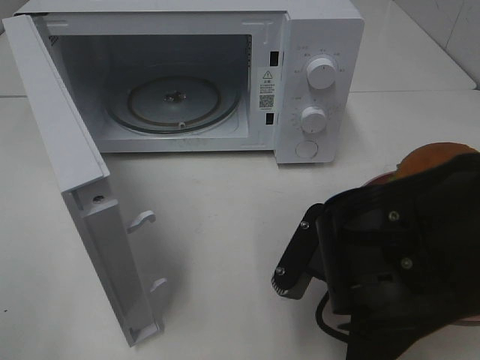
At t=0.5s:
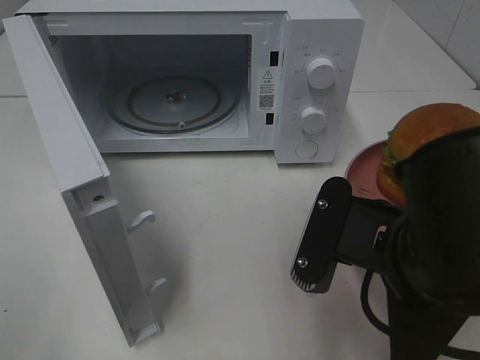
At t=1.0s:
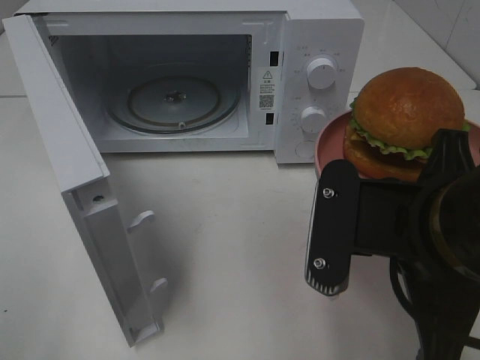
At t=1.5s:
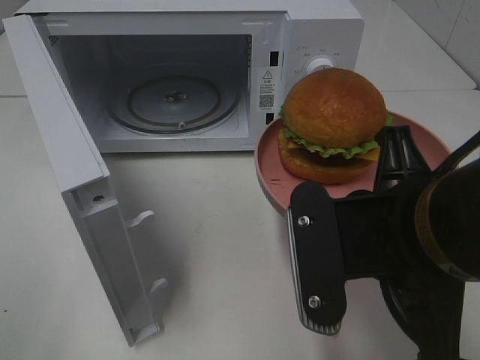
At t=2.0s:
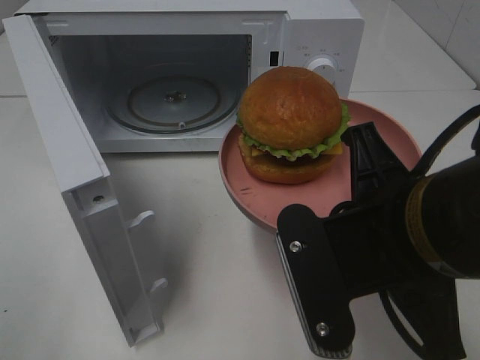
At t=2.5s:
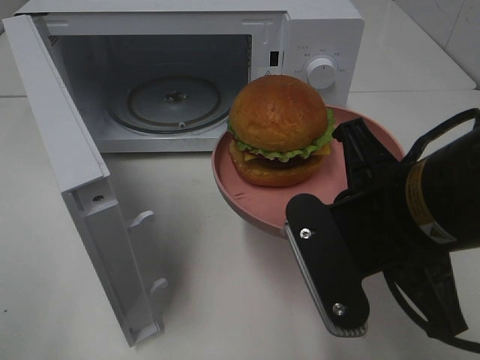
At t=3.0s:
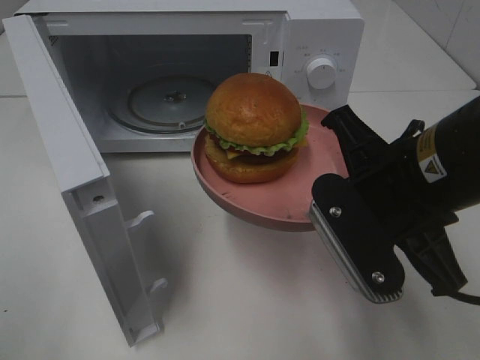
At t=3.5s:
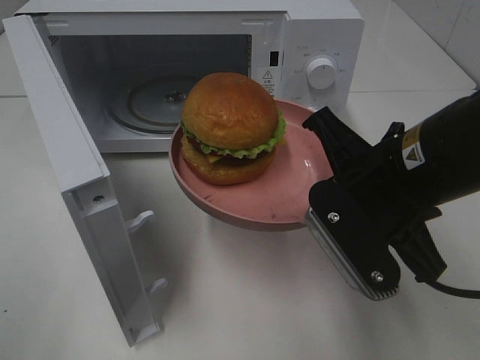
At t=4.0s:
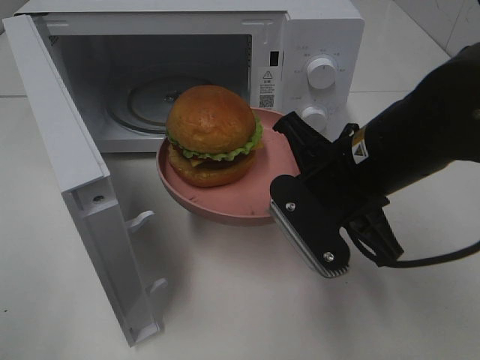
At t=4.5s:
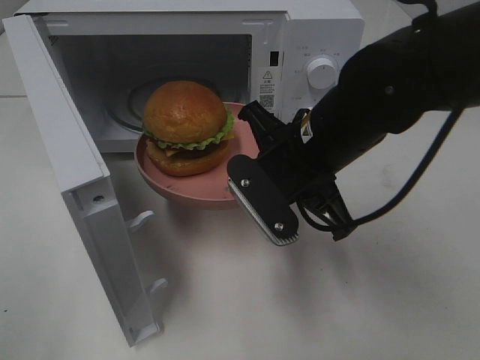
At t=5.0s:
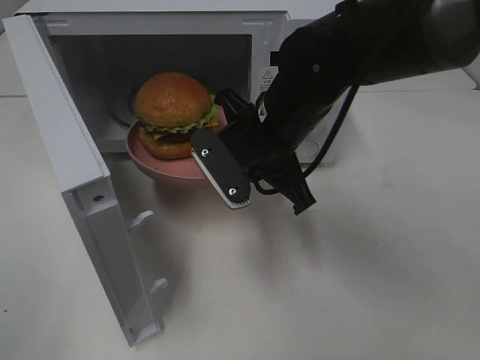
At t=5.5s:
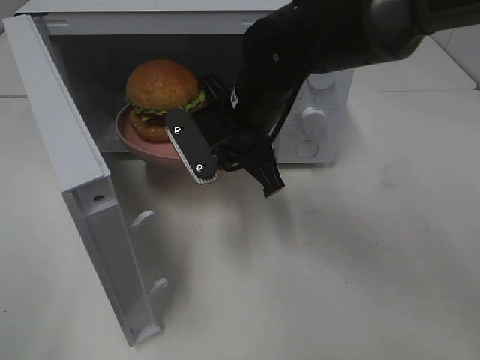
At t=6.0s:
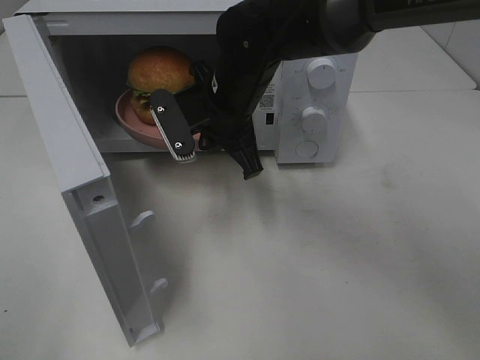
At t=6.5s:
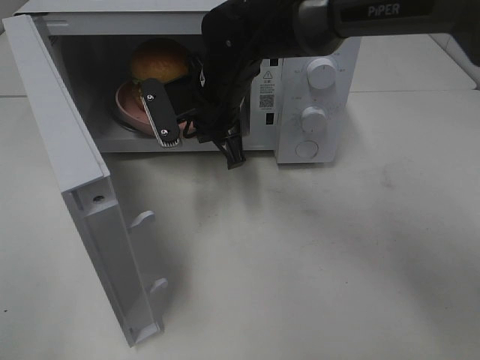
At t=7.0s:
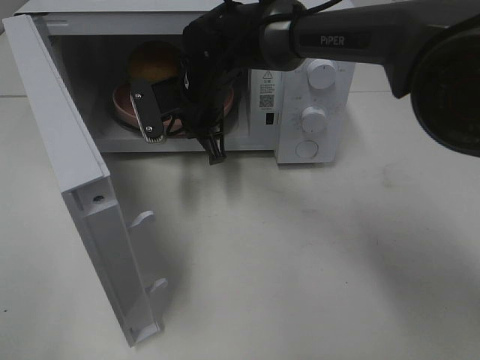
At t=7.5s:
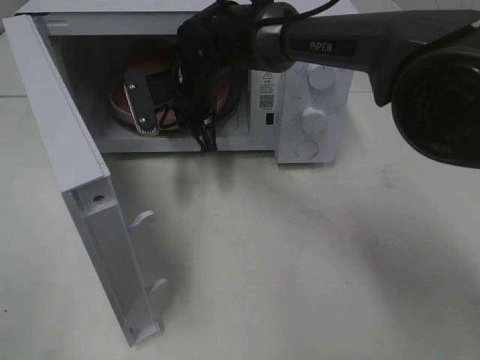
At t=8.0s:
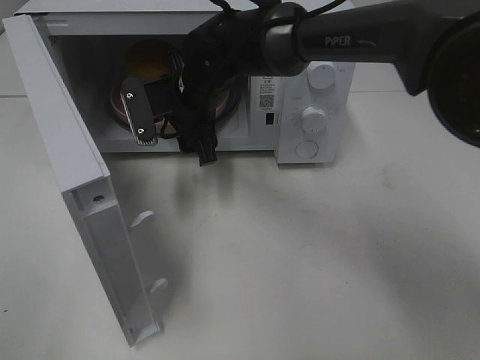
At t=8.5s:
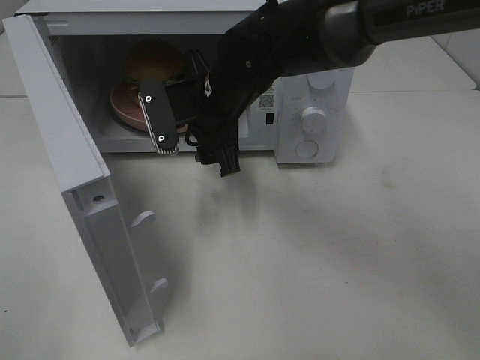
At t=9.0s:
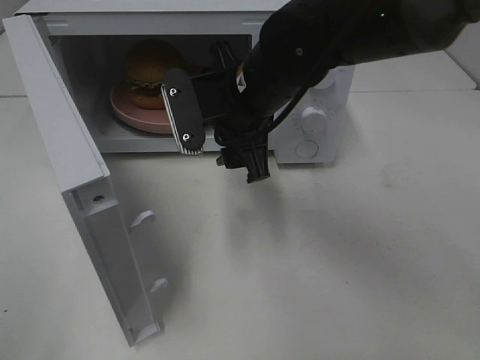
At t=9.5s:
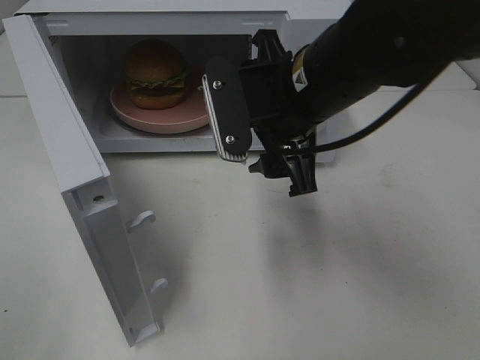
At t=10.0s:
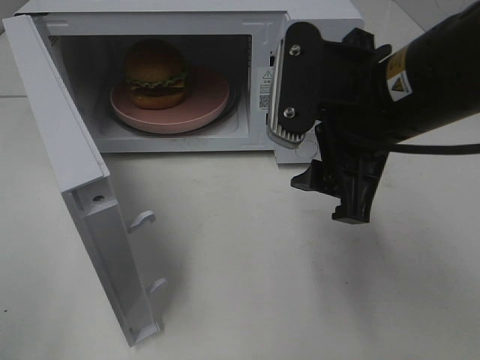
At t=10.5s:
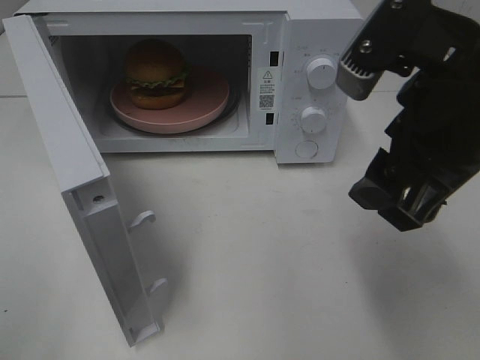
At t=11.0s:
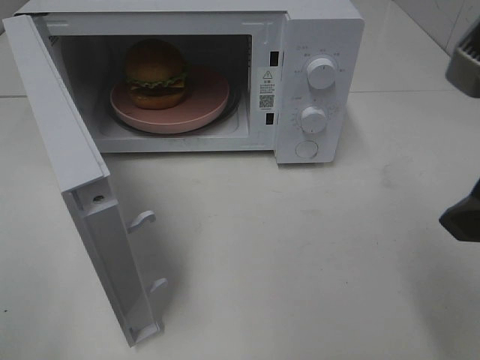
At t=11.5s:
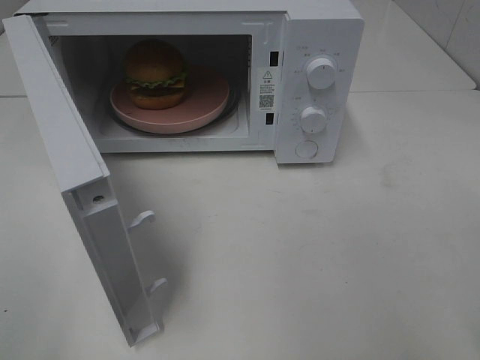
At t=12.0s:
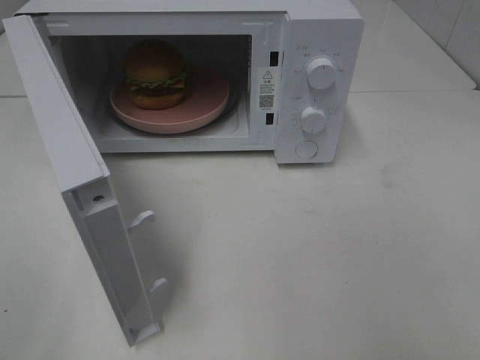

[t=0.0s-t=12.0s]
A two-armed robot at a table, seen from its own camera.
Task of the whole recording: Heat the burger.
Step, t=0.0s to t=7.5s: Right hand: place the plate in the microwave.
t=0.0s to t=2.0s: The right gripper heads upward, covering roughly 10 cm.
t=2.0s to t=4.0s: The right gripper moves forward, roughly 10 cm.
t=4.0s to t=6.0s: The right gripper moves forward and to the left, roughly 15 cm.
t=6.0s to t=8.0s: The right gripper changes place by some 5 cm, and opens.
t=8.0s to t=10.0s: The right gripper travels backward, to the right and upward by about 25 cm.
t=10.0s to t=12.0s: The right gripper moves backward and to the right, about 25 cm.

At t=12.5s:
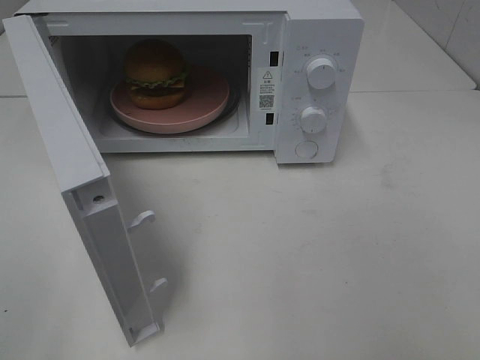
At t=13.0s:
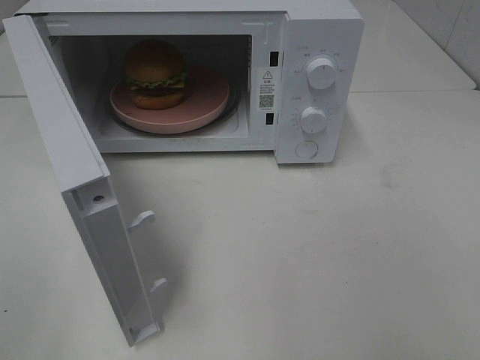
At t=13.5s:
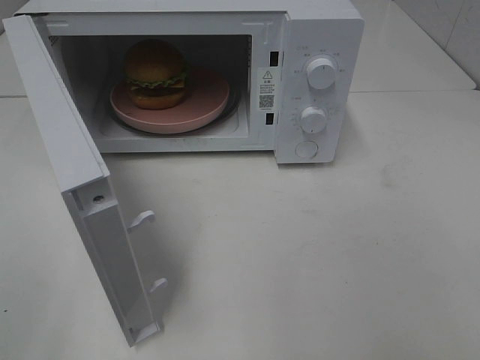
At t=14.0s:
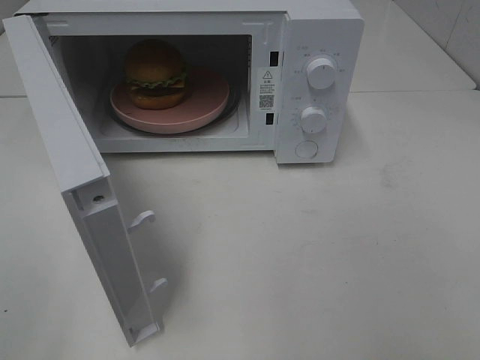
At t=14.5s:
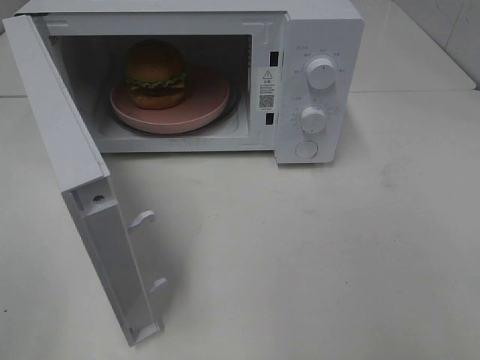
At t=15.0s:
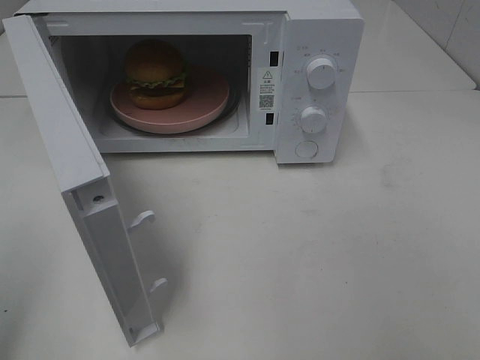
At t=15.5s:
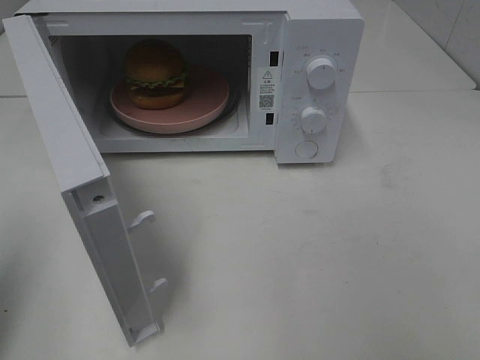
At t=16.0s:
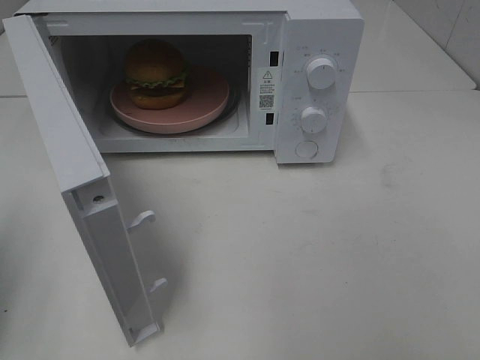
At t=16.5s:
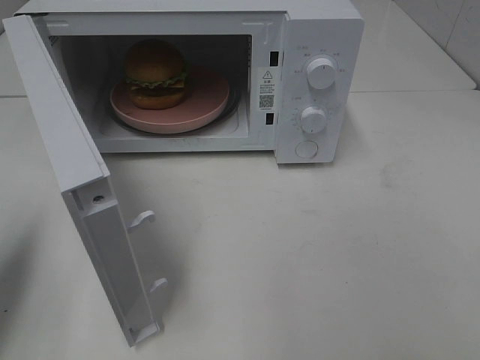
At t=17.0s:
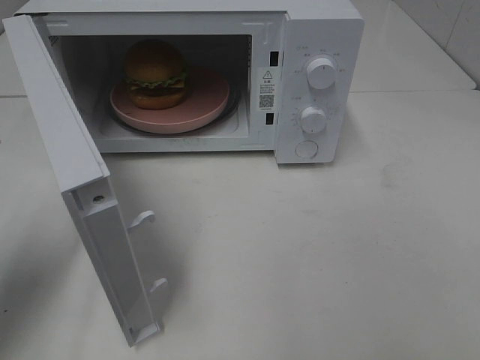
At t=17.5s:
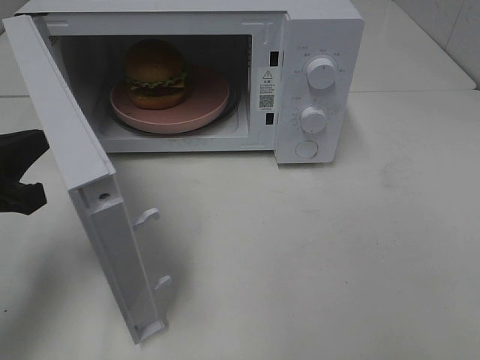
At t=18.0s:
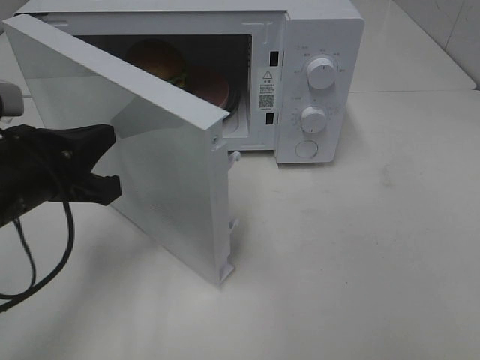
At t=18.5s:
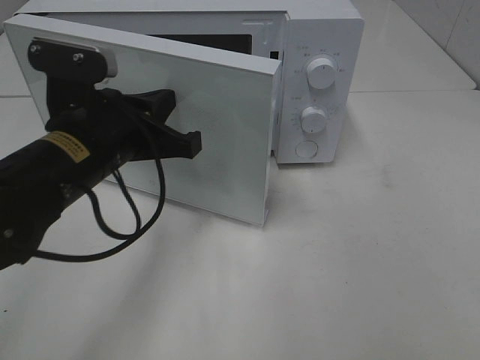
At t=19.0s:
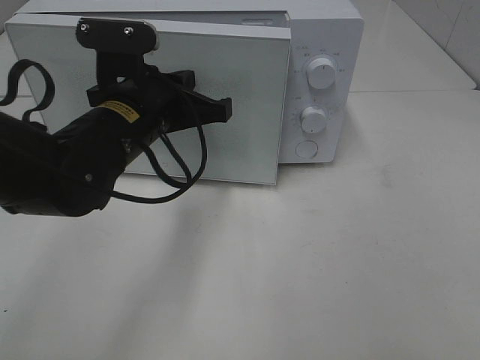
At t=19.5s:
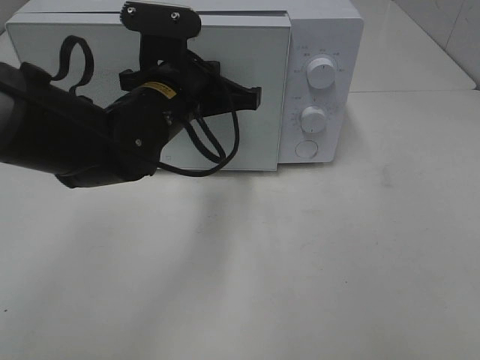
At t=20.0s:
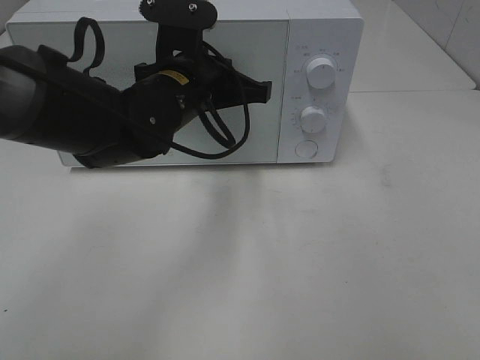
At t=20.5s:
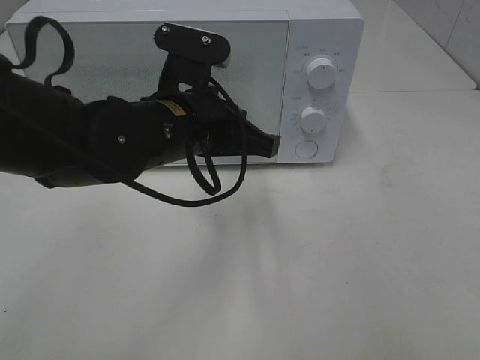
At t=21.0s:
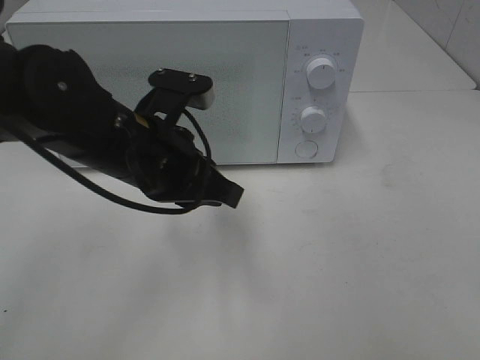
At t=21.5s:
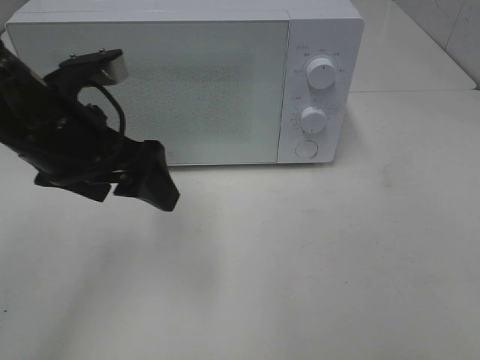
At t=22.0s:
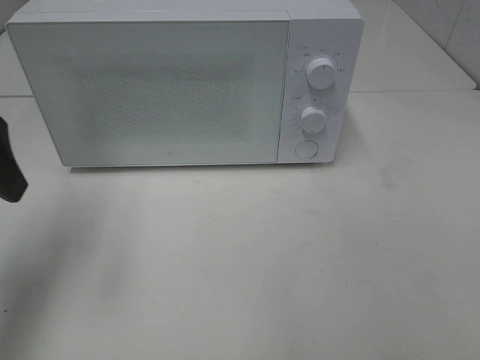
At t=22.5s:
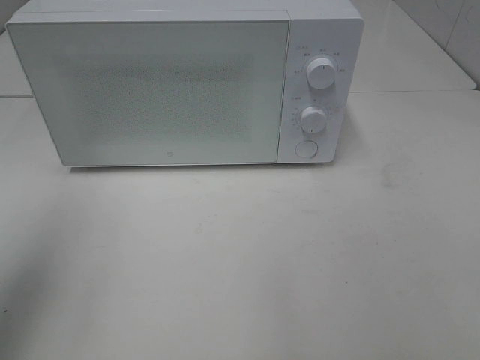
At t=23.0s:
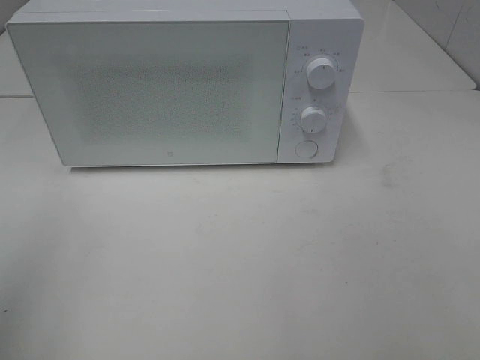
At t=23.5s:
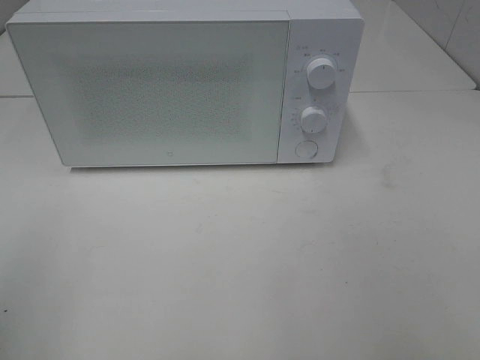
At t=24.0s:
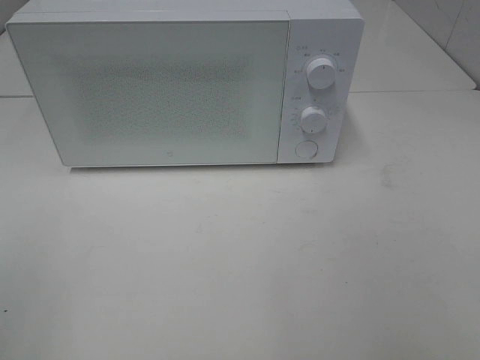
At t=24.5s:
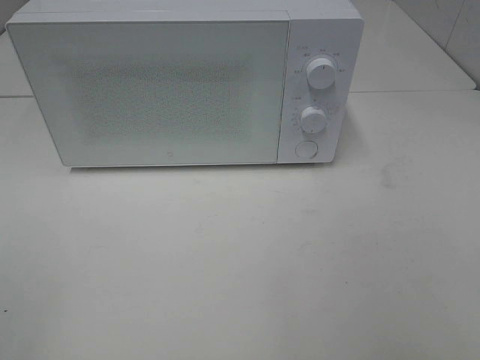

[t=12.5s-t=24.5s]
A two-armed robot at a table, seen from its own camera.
Task of the whole recording: Heat the burger.
Step, t=12.5s to t=20.5s: Left hand: close the microwave door.
t=12.5s to t=14.5s: Both grippers stay about where they are.
t=14.5s to t=16.5s: The left gripper is displaced forward and downward by some 15 cm, and closes up.
t=16.5s to t=18.5s: The left gripper shifts some 20 cm to the right and forward.
t=18.5s to t=20.5s: The left gripper travels to the right by roughly 10 cm, and goes forward and returns, some 10 cm each way.
t=20.5s to t=22.5s: The left gripper shifts roughly 30 cm to the left, upward and backward, and opens.
t=22.5s to t=24.5s: The left gripper heads backward, covering roughly 15 cm.

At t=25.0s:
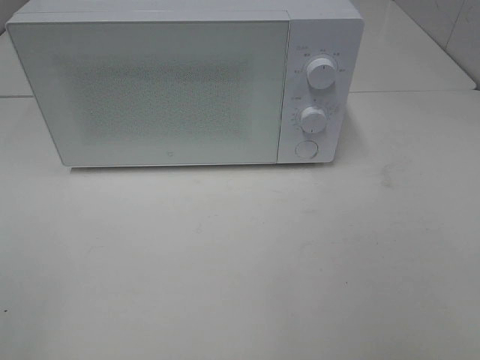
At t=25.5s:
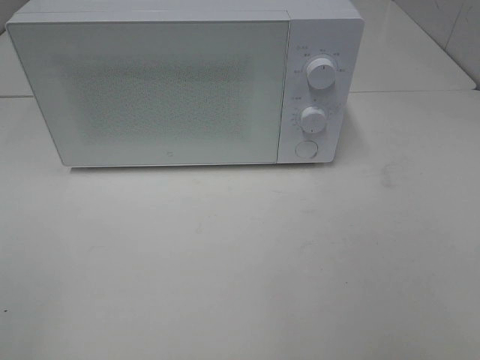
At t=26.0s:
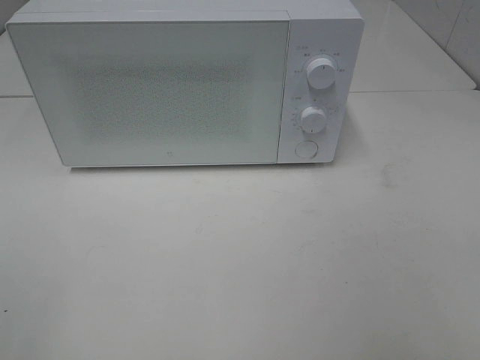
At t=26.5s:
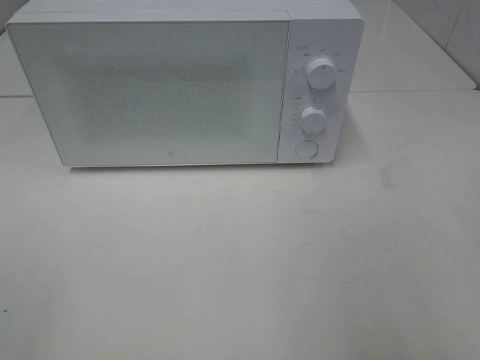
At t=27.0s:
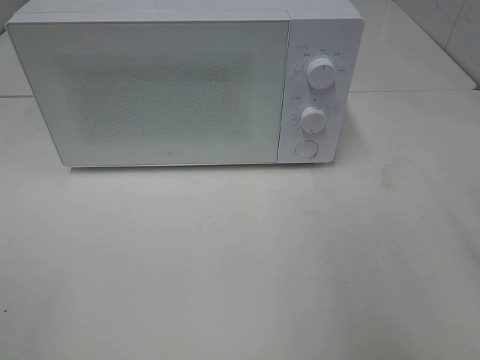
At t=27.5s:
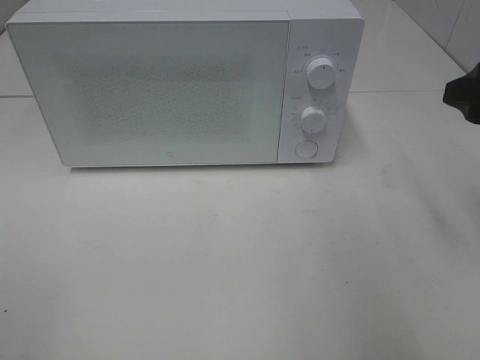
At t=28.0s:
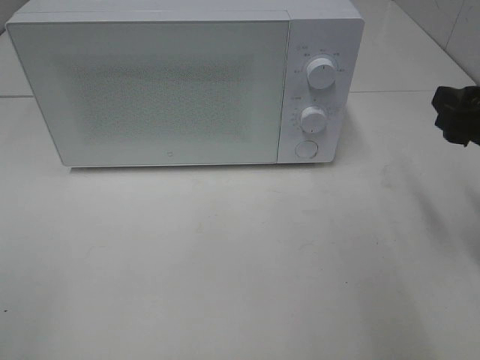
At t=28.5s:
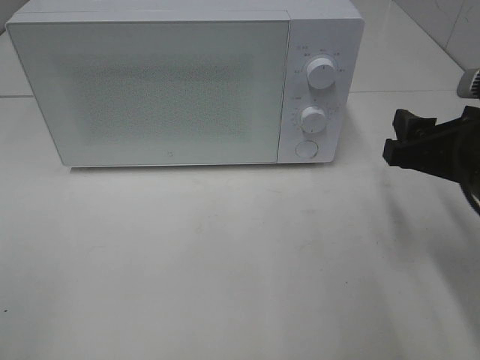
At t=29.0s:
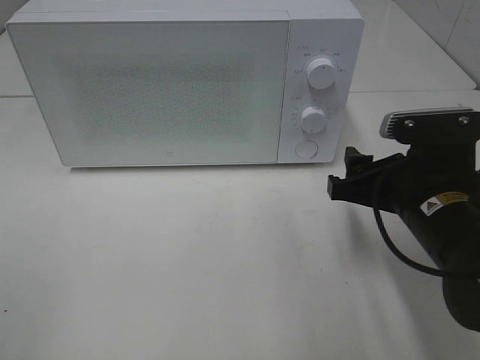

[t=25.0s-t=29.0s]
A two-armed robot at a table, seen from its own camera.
Task of the whole recording: Heat the burger.
t=27.0s to t=29.0s: The right gripper is displaced downward and to the left by some 20 cm.
